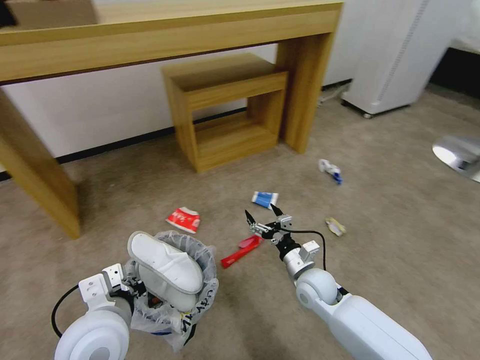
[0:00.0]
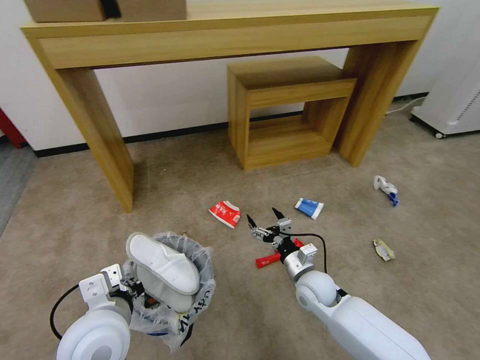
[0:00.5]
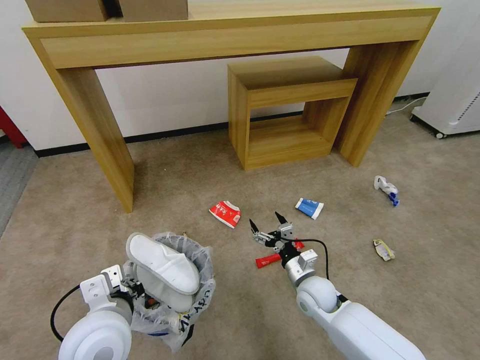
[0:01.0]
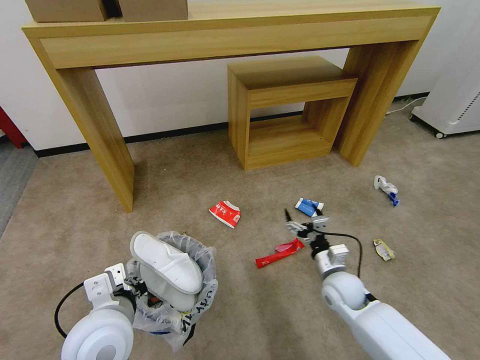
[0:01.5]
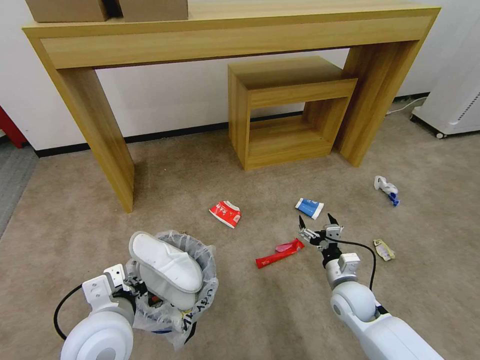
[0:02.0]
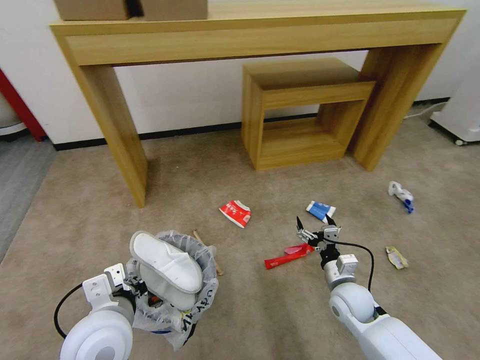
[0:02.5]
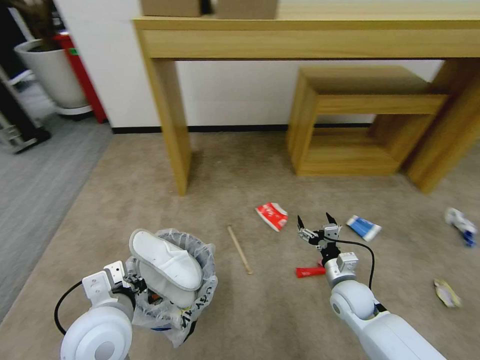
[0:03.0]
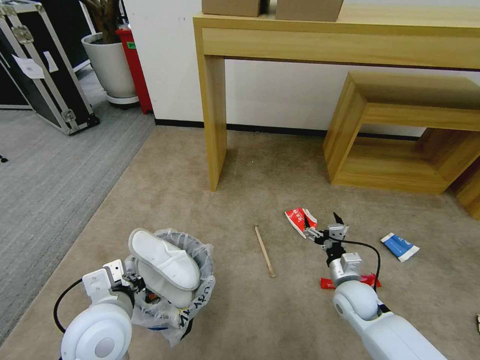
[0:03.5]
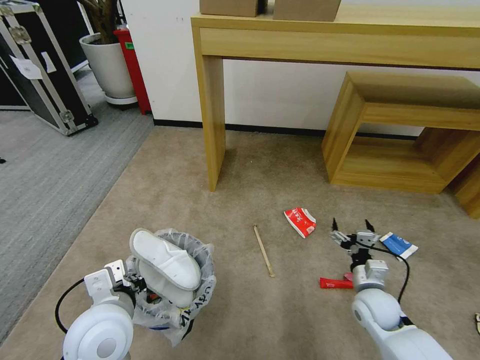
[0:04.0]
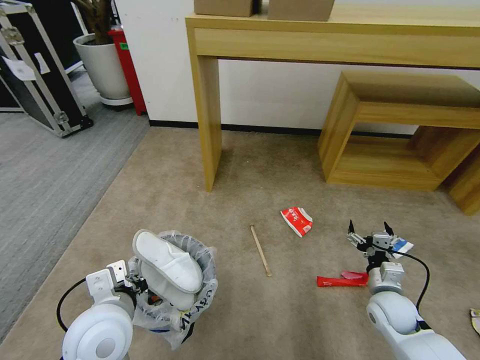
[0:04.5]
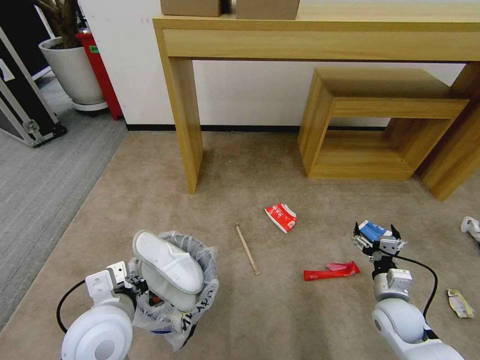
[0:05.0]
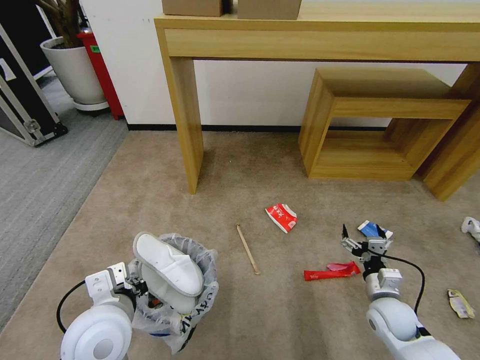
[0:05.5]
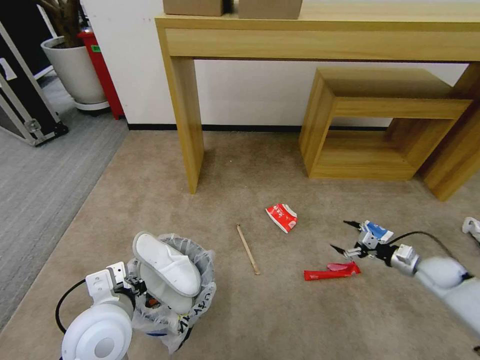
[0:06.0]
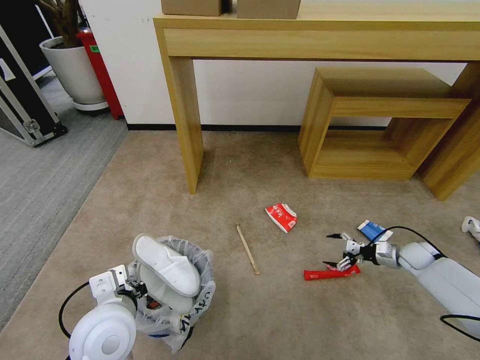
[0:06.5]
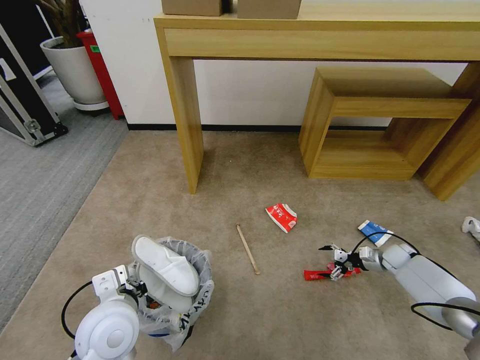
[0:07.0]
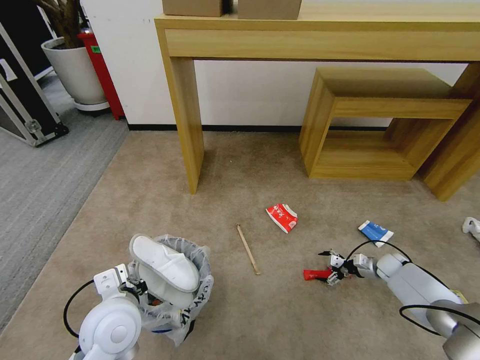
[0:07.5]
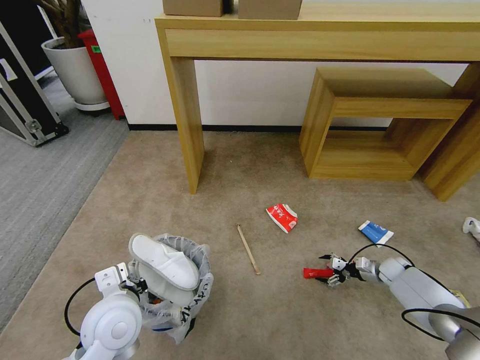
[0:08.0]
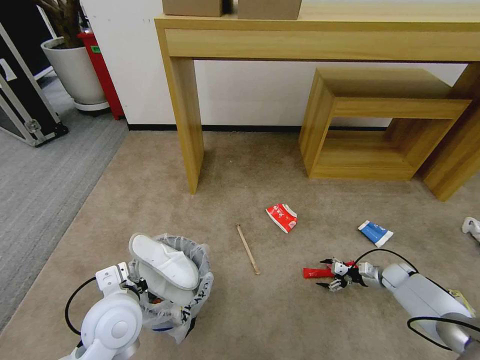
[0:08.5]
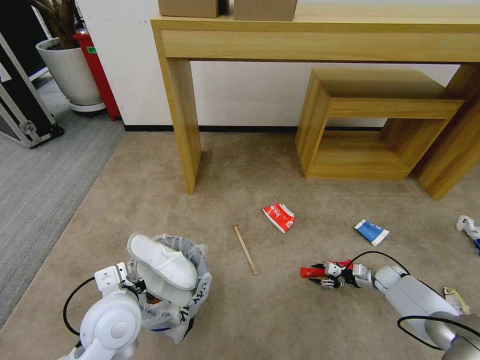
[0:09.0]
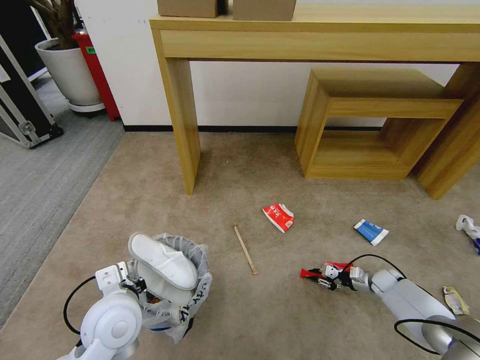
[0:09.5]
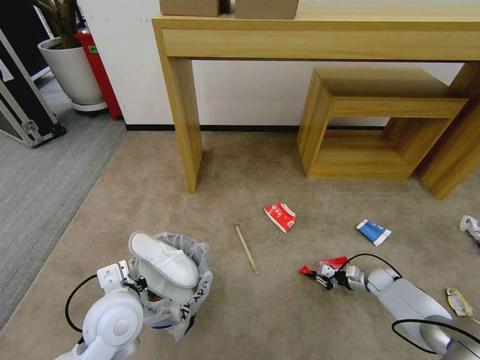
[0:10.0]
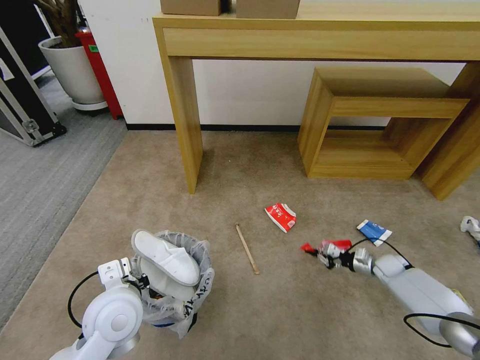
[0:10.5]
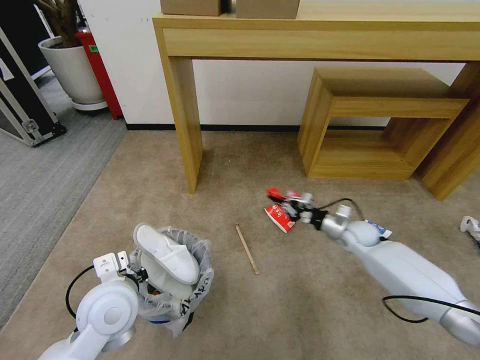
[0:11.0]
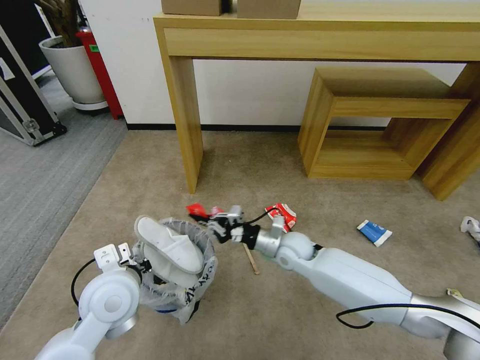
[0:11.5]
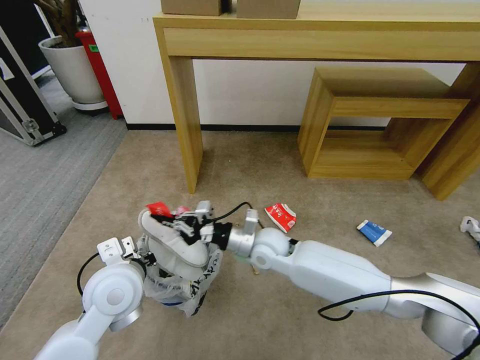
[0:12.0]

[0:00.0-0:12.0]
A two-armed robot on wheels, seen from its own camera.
Task of the whole recording: Pick up the trash bin and place the garbage on the floor into it.
0:00.0 to 0:02.0: The right gripper goes approximately 10 cm to the right.
0:02.0 to 0:04.0: The right gripper moves to the right, roughly 5 cm.
0:04.0 to 0:06.0: The right gripper moves to the right, roughly 20 cm.
0:06.0 to 0:08.0: The right gripper travels downward and forward by roughly 15 cm.
0:08.0 to 0:10.0: The right gripper changes place by some 5 cm, and closes up.
0:10.0 to 0:12.0: The right gripper goes about 50 cm to the left and upward. The left gripper changes place by approximately 5 cm.

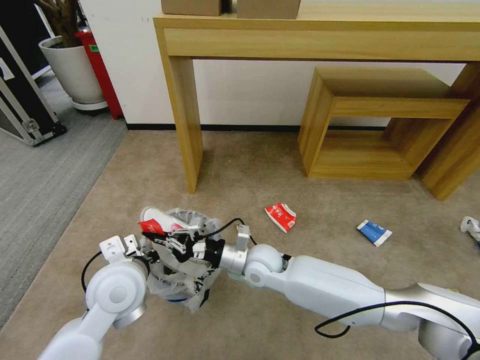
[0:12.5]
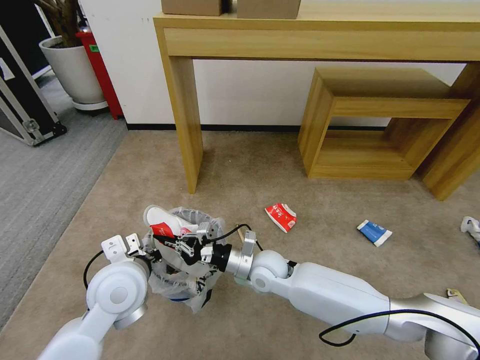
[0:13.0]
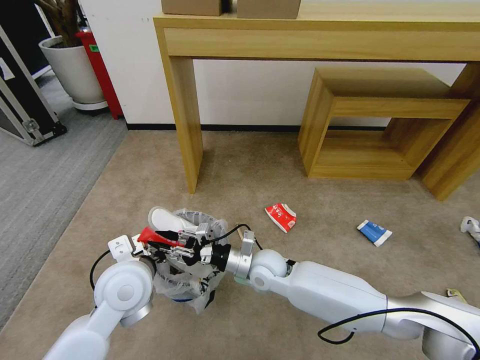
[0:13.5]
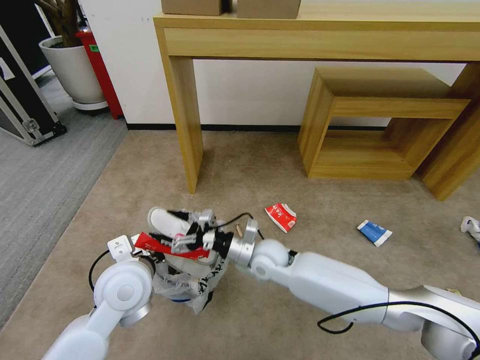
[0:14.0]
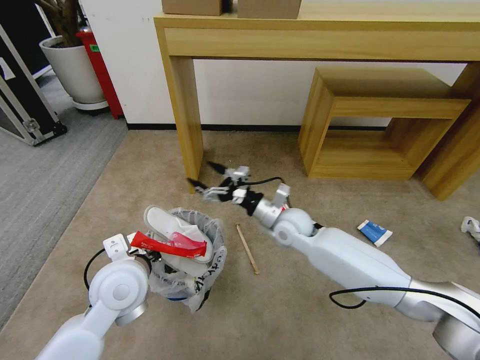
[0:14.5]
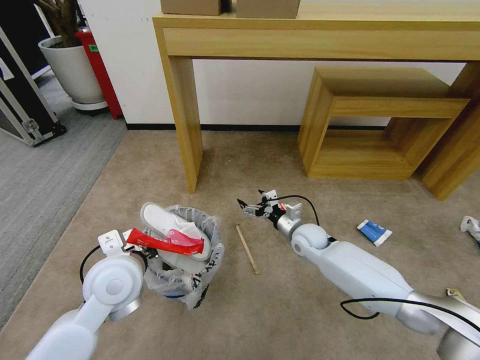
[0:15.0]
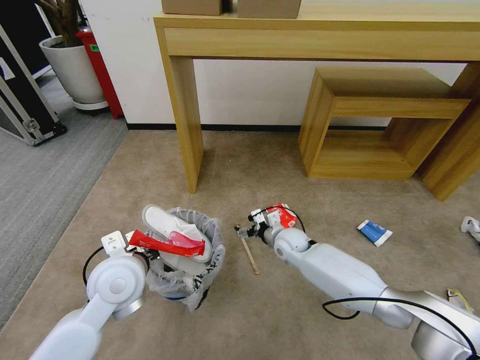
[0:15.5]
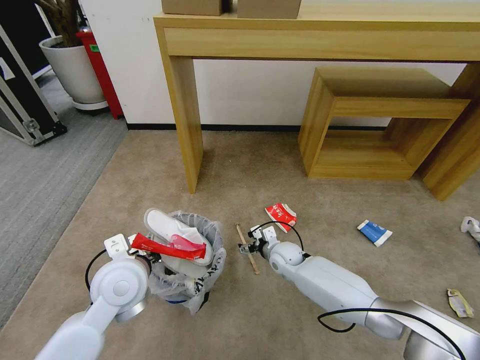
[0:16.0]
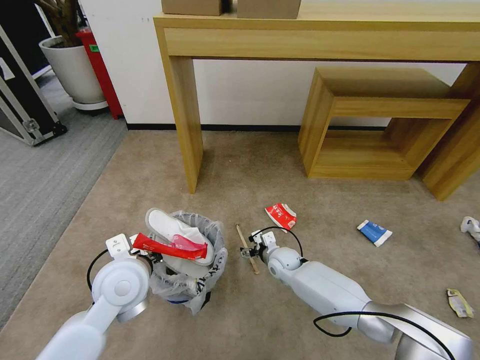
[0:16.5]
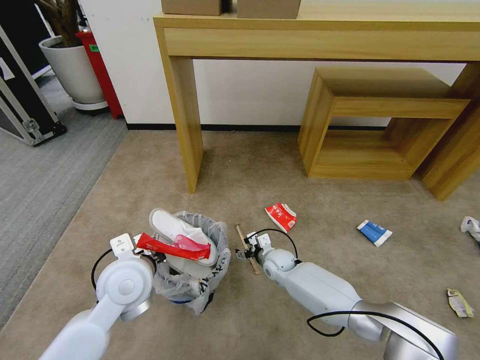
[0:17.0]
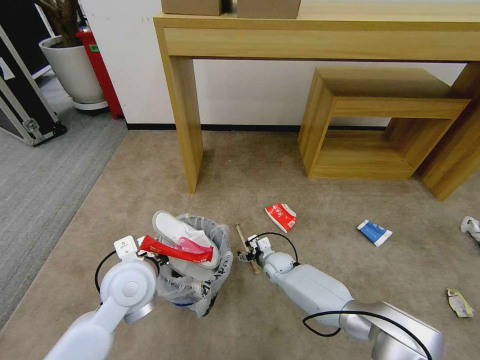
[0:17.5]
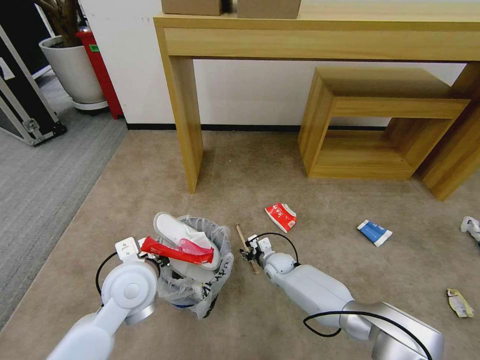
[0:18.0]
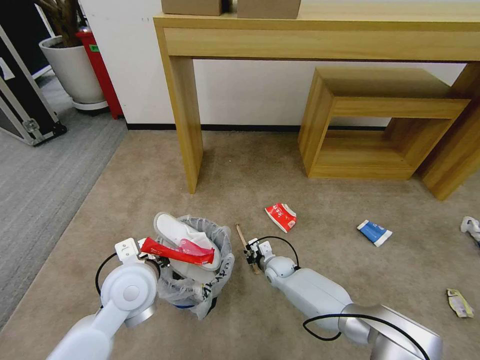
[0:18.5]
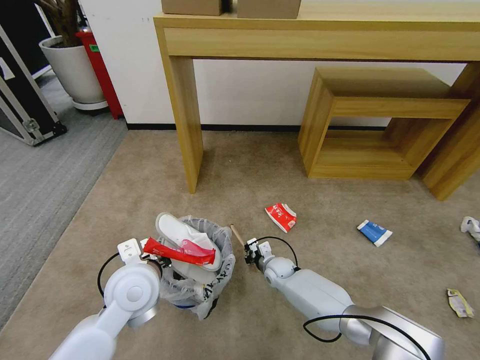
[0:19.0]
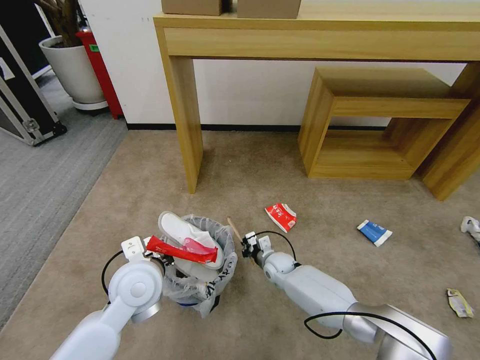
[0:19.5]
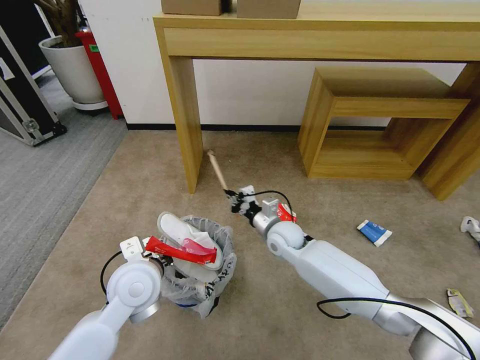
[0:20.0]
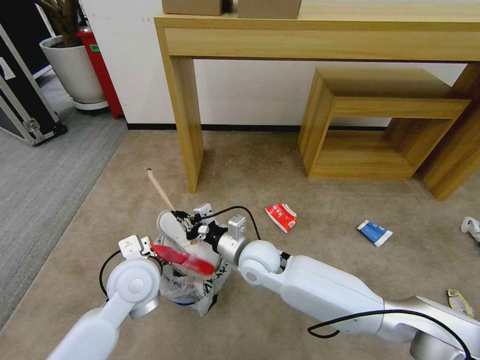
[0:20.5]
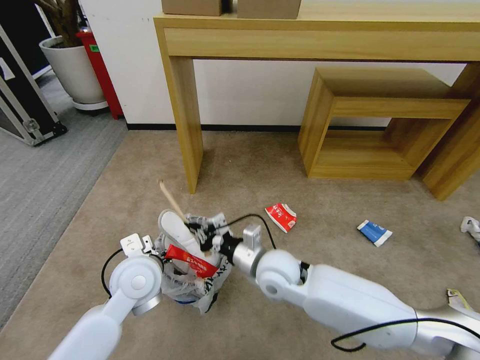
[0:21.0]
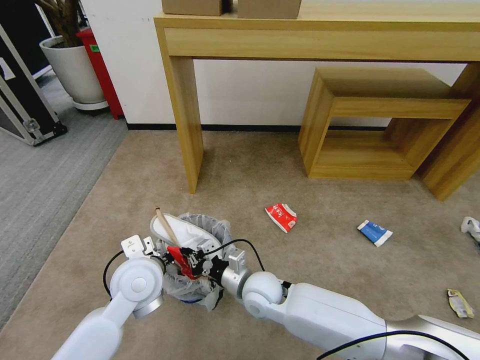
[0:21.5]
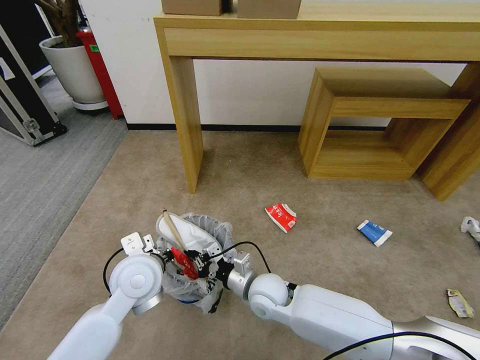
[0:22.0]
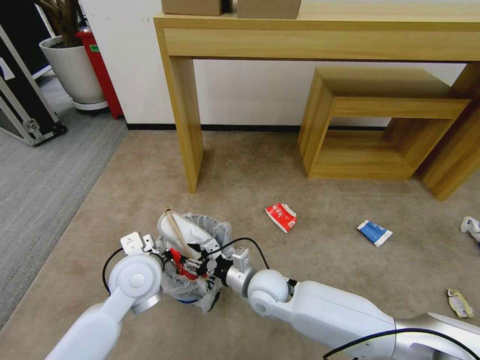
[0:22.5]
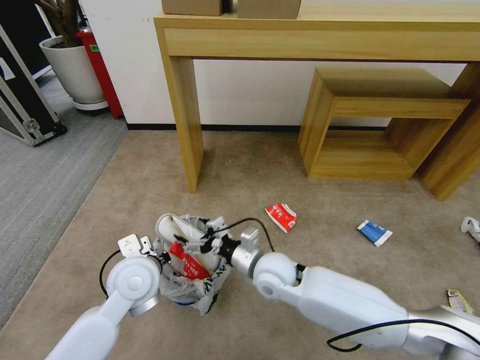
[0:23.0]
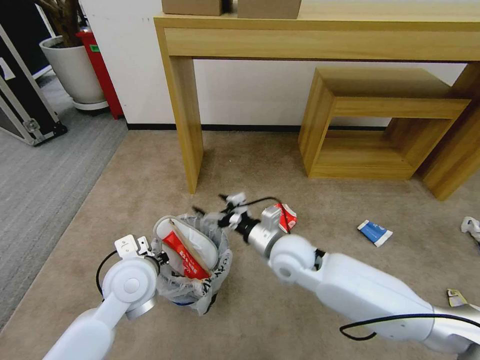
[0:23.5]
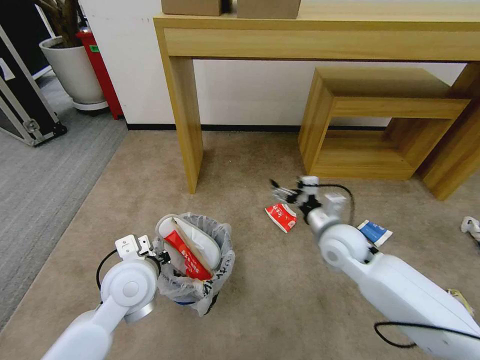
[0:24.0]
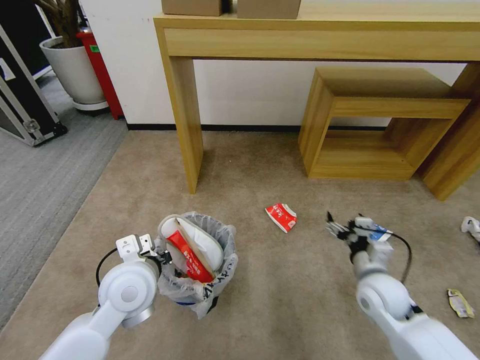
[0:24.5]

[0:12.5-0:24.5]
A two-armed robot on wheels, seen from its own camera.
Task of the whole recording: Pick up the trash bin and place the garbage on the floor into it.
0:12.5 to 0:14.5: The right gripper shifts about 15 cm to the right and forward, and opens up.
0:14.5 to 0:16.5: The right gripper shifts about 15 cm downward.
0:16.5 to 0:18.5: The right gripper goes roughly 5 cm downward, and closes up.
0:18.5 to 0:20.5: The right gripper goes some 25 cm upward and to the left.
0:20.5 to 0:22.5: The right gripper goes about 5 cm downward and backward, and opens its fingers.
0:22.5 to 0:24.5: The right gripper shifts roughly 25 cm to the right, and opens up.

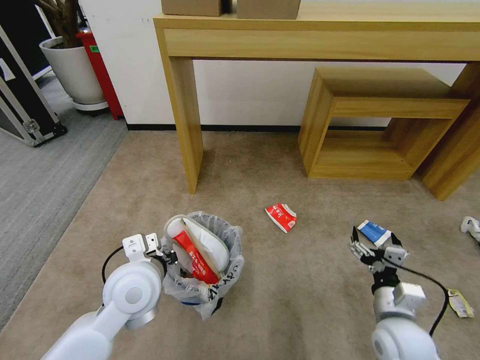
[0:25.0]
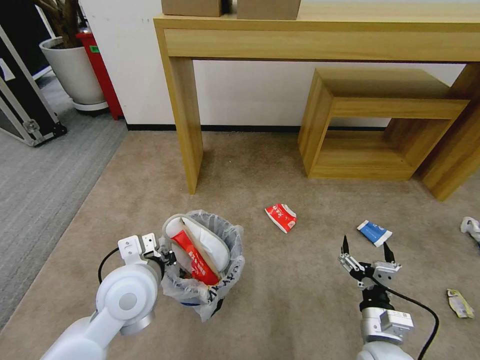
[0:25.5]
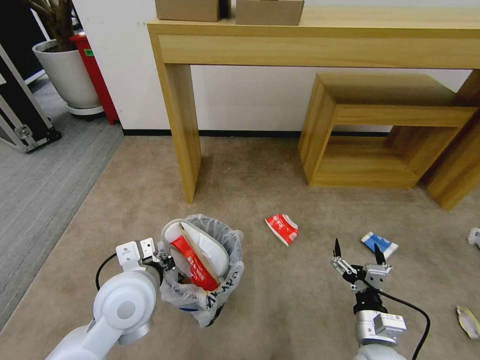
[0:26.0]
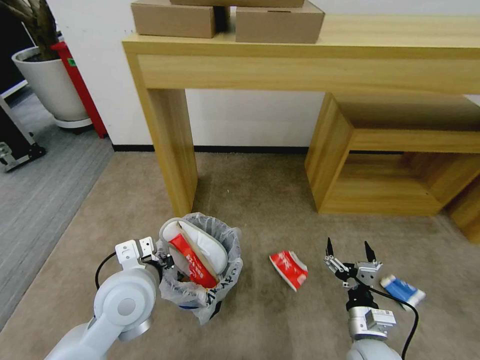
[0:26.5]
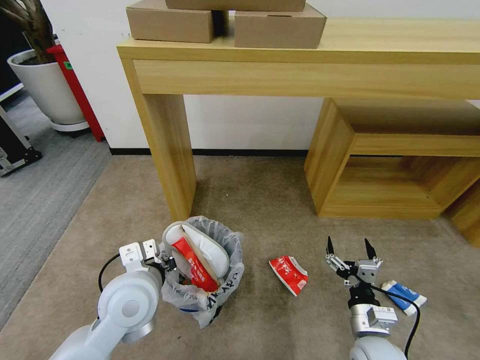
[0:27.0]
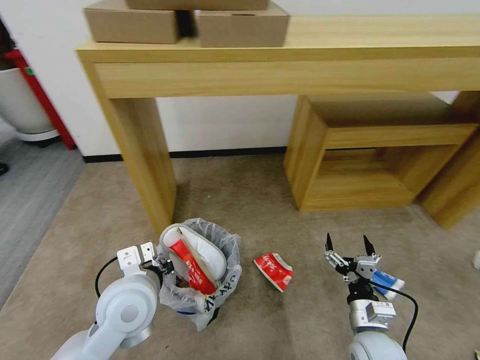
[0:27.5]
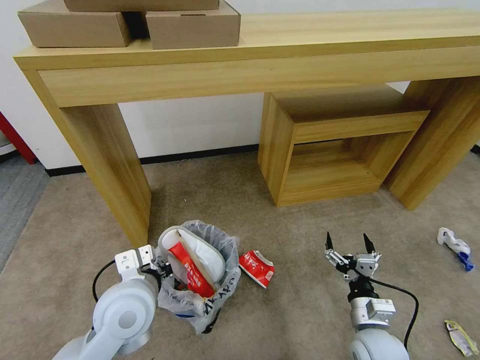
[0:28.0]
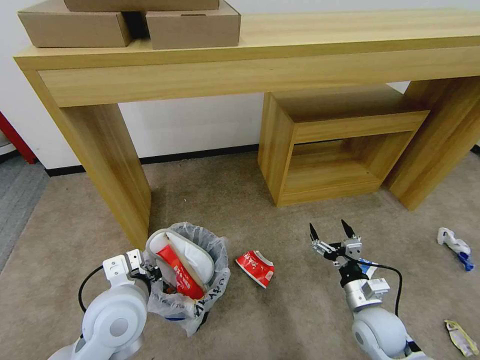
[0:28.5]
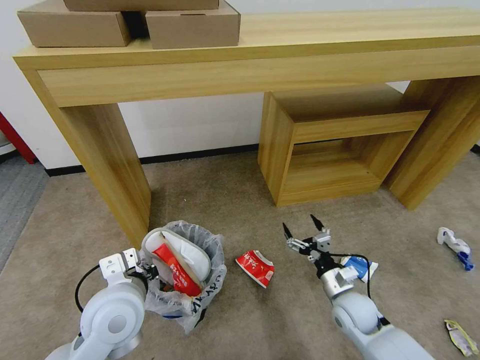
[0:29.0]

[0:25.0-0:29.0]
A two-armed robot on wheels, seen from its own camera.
Task of the whole recording: Pick up the trash bin and place the garbage on the floor into it.
0:25.0 to 0:27.0: The right gripper ends up approximately 5 cm from where it was.
0:27.0 to 0:29.0: The right gripper travels forward by roughly 10 cm.
